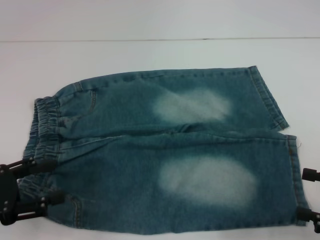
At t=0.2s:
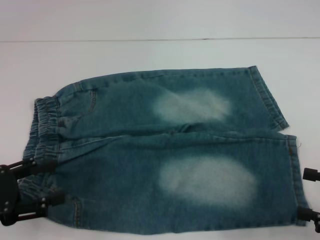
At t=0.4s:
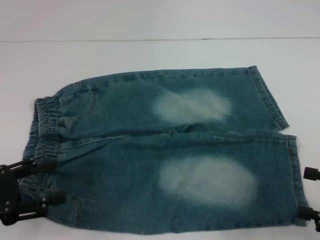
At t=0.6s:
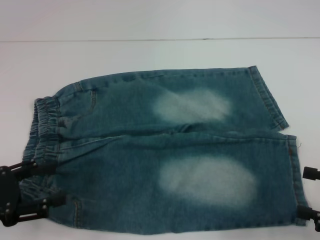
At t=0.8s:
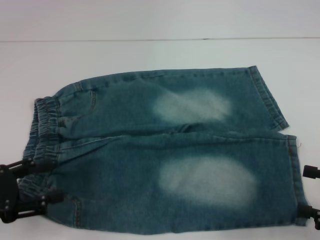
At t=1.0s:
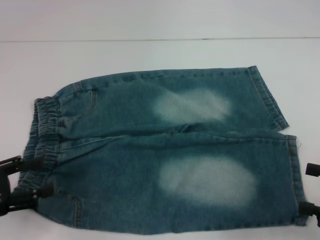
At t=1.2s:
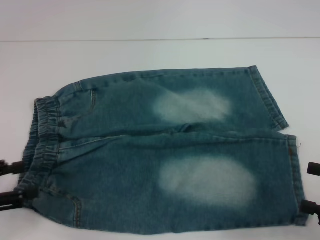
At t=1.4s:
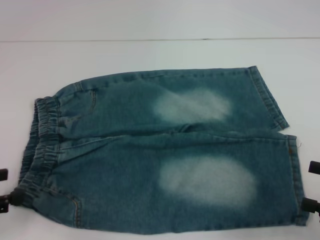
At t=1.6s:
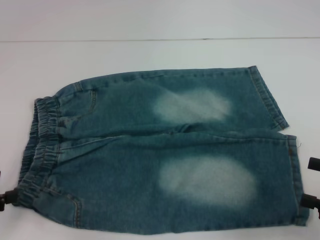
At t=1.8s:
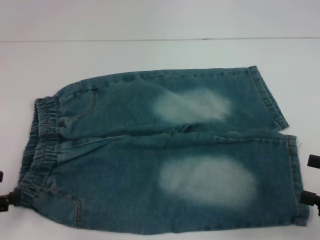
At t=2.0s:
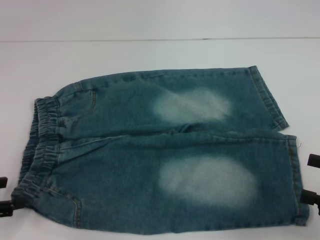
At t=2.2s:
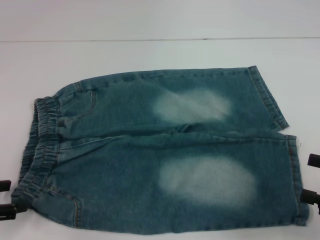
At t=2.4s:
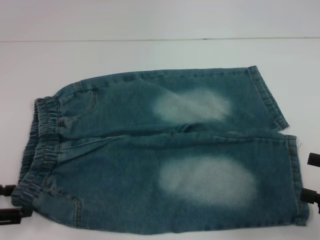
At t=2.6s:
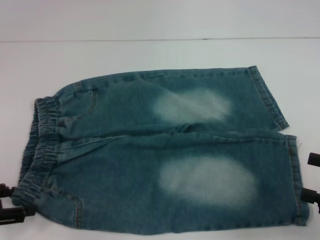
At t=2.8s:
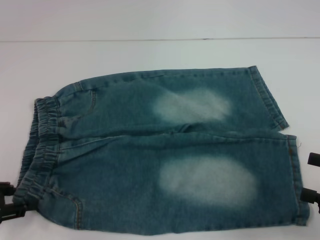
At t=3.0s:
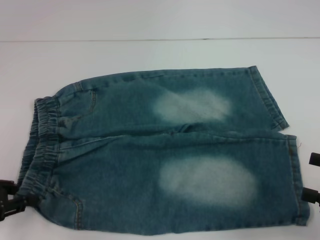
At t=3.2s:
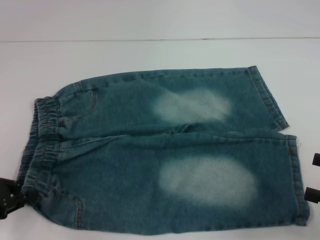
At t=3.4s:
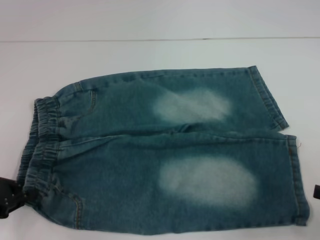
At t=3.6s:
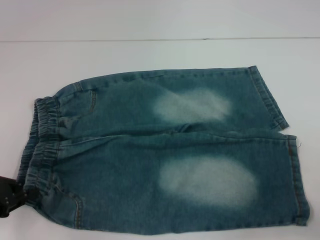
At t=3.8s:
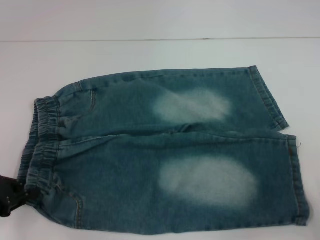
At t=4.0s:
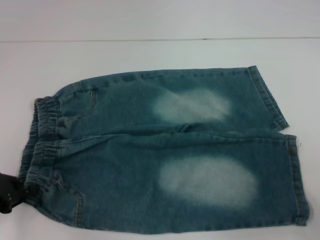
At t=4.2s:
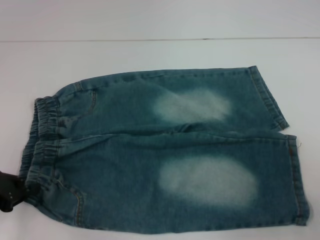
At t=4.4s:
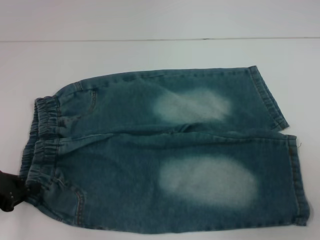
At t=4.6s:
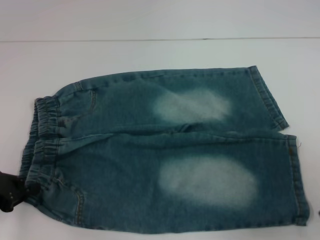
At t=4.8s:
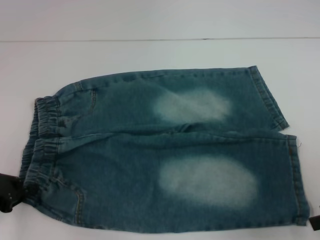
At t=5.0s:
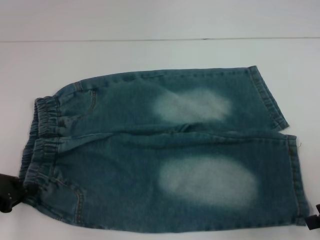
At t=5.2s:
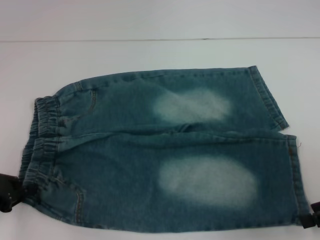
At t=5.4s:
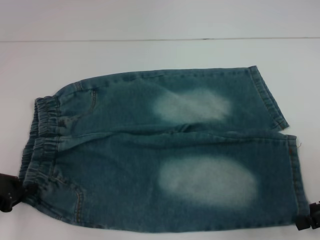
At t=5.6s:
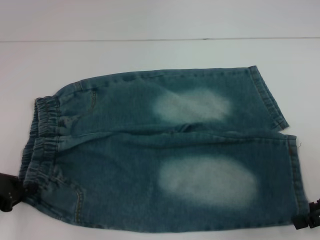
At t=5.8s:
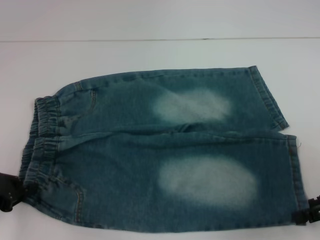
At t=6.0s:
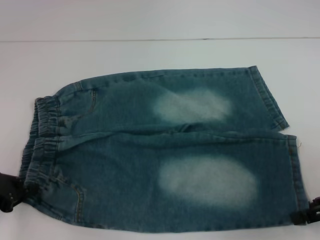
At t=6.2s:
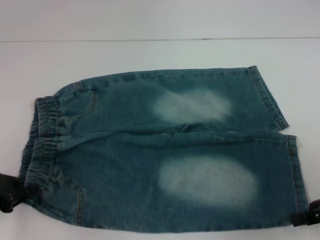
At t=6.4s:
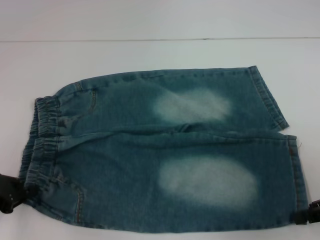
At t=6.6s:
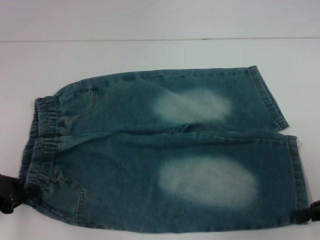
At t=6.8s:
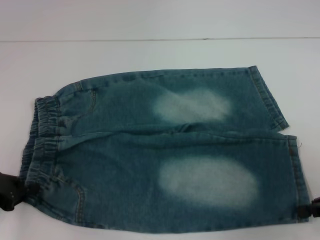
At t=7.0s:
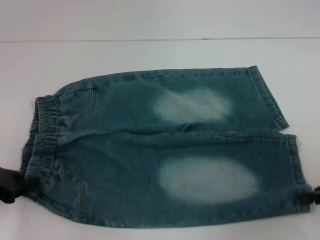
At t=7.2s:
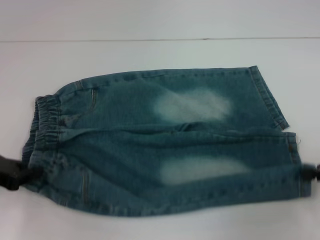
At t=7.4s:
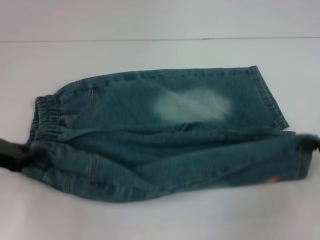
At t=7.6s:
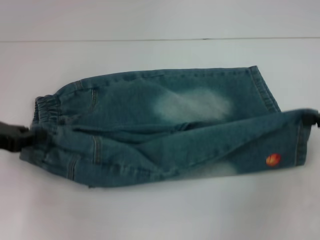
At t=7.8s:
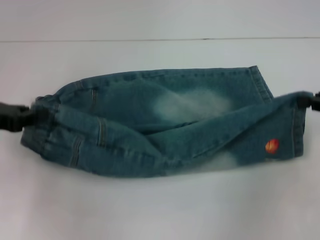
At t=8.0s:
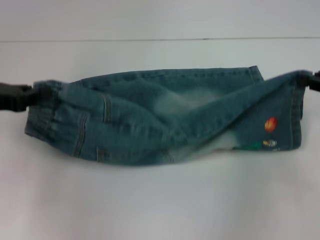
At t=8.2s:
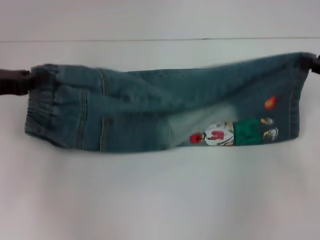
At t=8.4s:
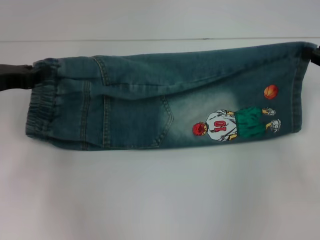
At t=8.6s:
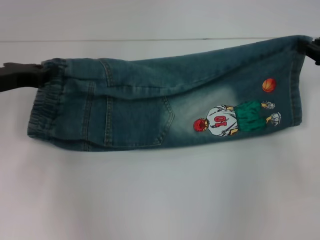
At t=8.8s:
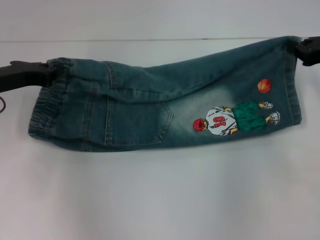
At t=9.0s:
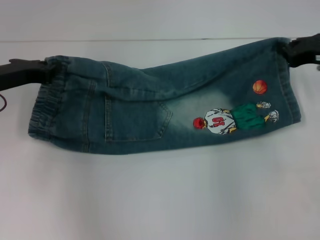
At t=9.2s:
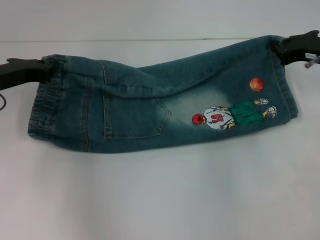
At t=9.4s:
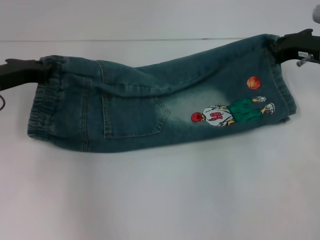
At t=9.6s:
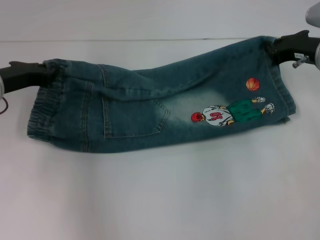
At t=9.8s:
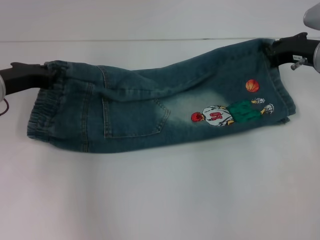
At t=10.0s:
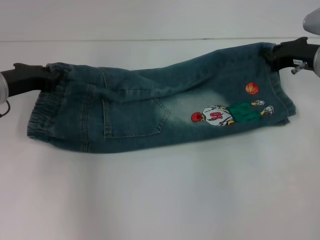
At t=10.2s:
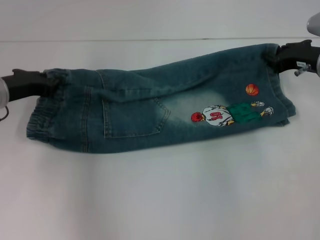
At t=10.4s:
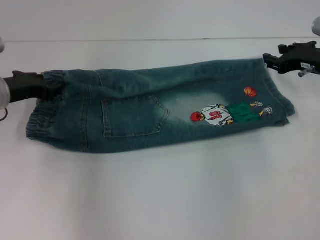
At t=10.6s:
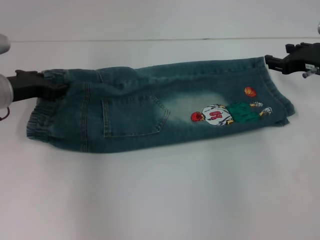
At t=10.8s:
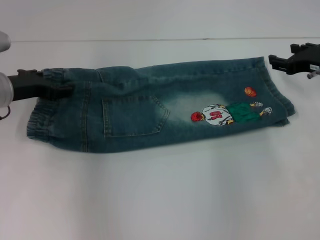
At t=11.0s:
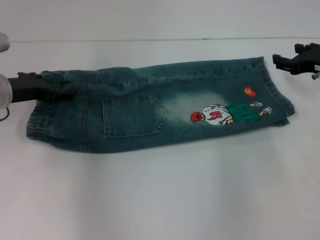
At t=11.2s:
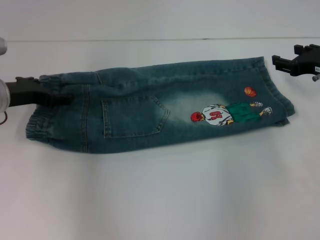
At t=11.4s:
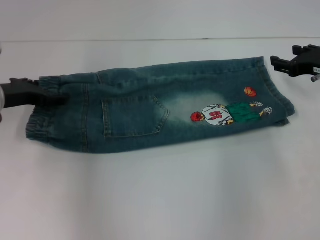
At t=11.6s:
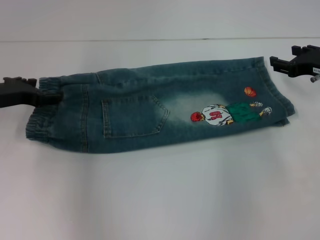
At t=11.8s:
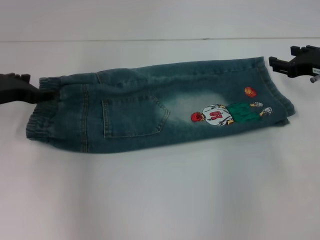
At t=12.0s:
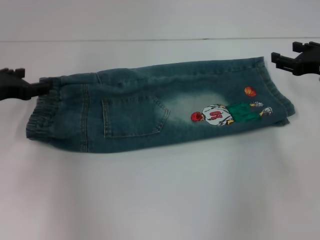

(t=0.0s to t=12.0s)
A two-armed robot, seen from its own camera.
Step, t=0.0s - t=3.0s: Hold the lower left waistband with your left hand.
Step, t=6.8s - t=11.4s: Fold upward with your right hand.
t=0.0s - t=1.6s: The left gripper moves about 5 cm.
t=1.6s - t=3.0s: The left gripper closes.
t=3.0s - t=4.4s: The left gripper closes up; the right gripper heads upward, covering some 5 cm.
t=4.4s - t=6.0s: The right gripper ends up about 5 cm from where it was.
t=6.0s - t=7.6s: The right gripper moves upward, roughly 5 cm, and closes its fingers, while the left gripper moves some 5 cm.
t=7.6s - t=9.0s: The right gripper goes about 10 cm forward and to the left, while the left gripper goes about 5 cm forward.
t=9.0s - t=10.4s: The grippers move only a little.
t=10.4s - t=12.0s: The right gripper opens up, while the left gripper opens its fingers.

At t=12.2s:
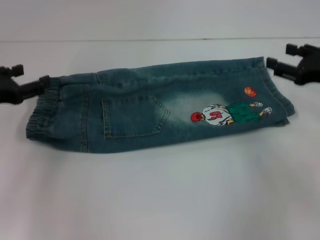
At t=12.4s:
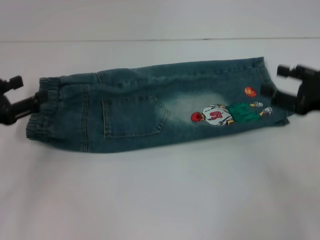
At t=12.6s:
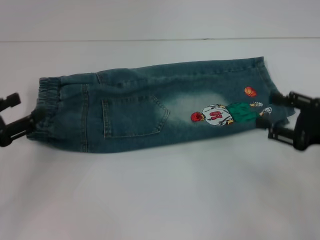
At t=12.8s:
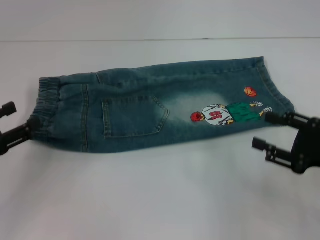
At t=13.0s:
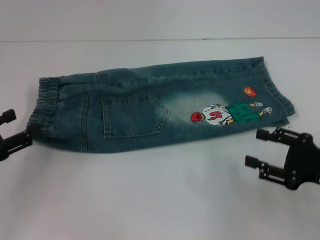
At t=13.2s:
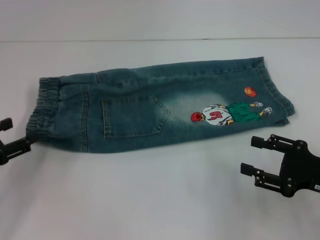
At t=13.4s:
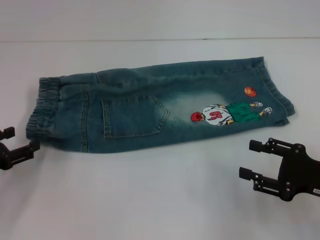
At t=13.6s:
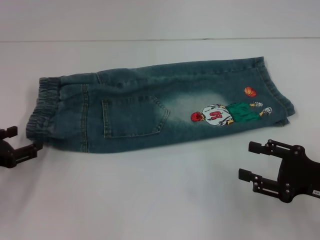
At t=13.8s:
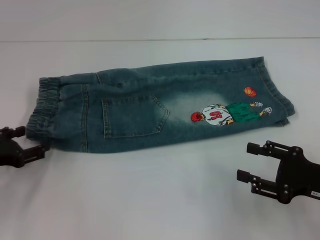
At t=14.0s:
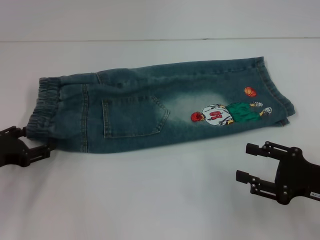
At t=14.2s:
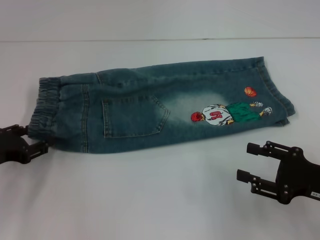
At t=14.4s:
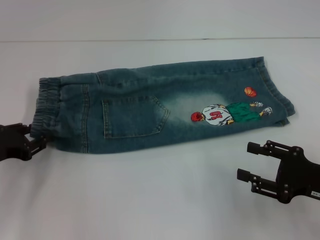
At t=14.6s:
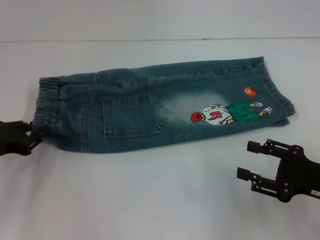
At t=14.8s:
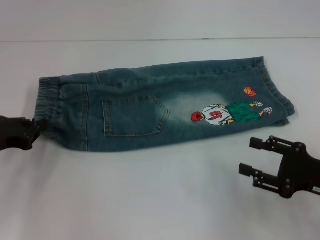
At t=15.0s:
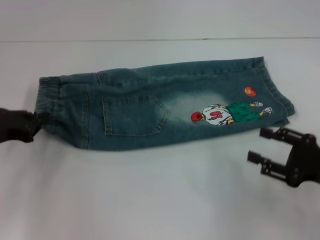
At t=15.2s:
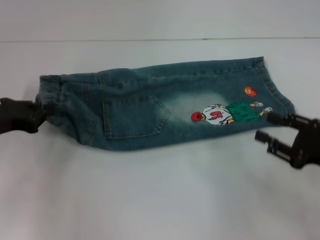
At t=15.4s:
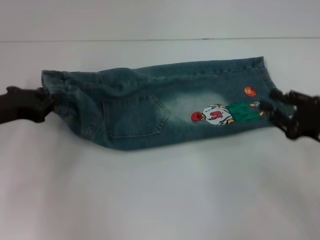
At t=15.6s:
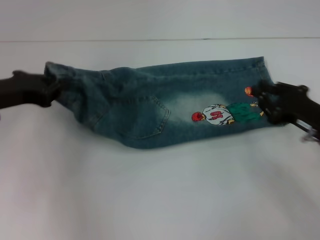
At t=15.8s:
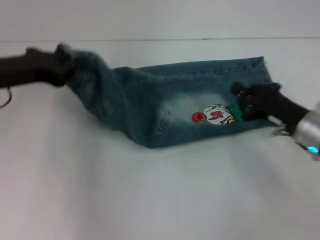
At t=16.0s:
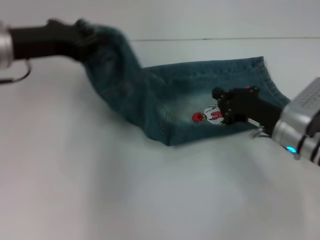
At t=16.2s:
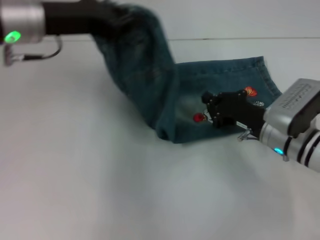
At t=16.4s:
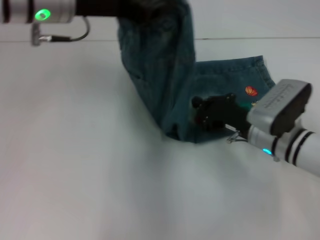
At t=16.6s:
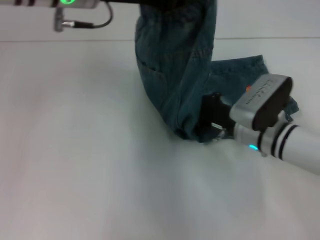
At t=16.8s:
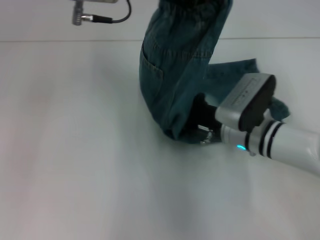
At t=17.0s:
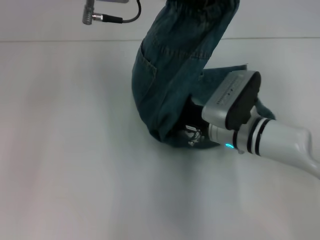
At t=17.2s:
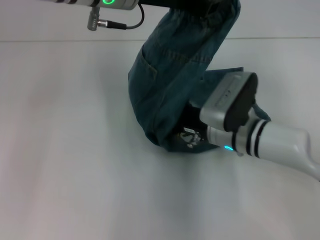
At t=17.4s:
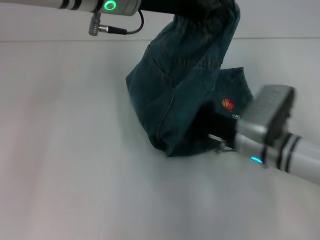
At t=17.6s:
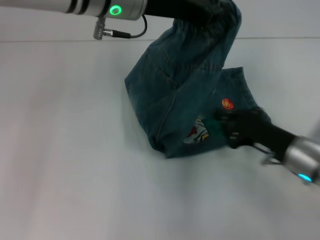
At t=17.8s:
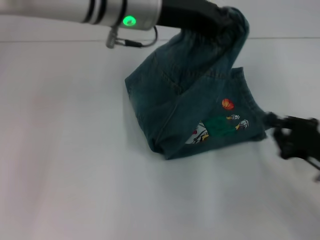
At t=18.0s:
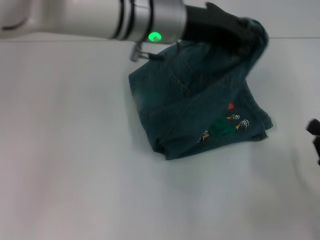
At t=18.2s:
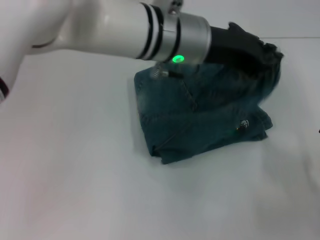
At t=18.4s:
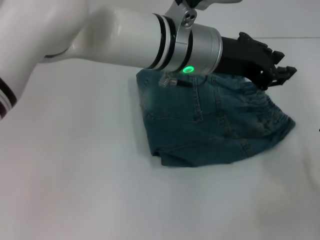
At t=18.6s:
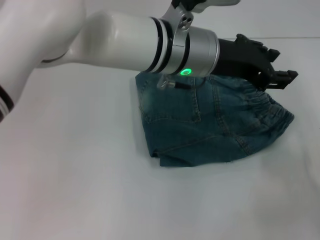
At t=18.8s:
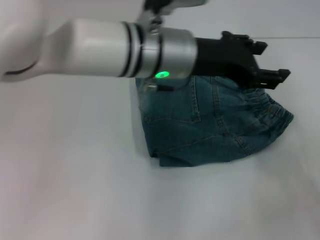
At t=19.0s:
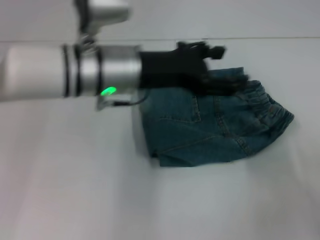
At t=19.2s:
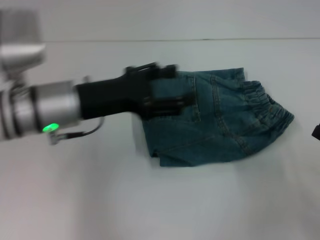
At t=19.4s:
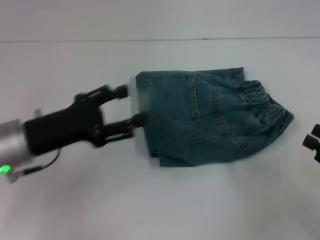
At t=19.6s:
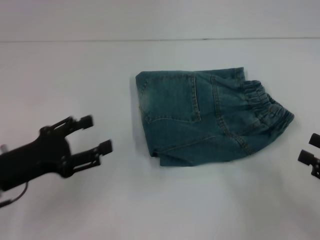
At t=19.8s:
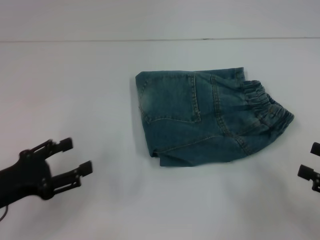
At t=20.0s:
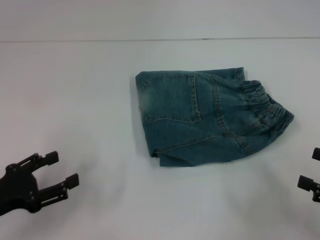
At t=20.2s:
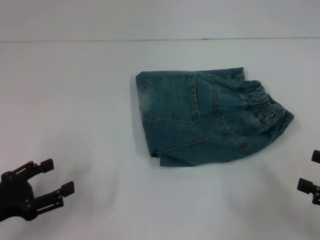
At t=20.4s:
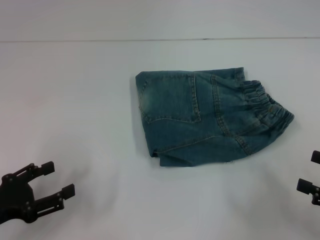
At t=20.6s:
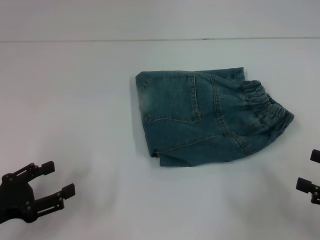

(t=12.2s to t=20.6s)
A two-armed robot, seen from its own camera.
Step, t=12.2s - t=14.4s: Hold the waistband with your left hand.
Step, t=14.6s - t=17.4s: Press the middle of the pants with your right hand.
Step, t=17.6s - t=18.8s: Fold to the right with your left hand.
t=12.2s - t=13.6s: The left gripper shifts approximately 10 cm downward and backward. The right gripper goes some 15 cm backward and downward.
t=13.6s - t=15.0s: The left gripper changes place by about 5 cm, and closes its fingers.
t=15.0s - t=16.4s: The right gripper goes roughly 15 cm to the left and forward, and closes its fingers. Meanwhile the left gripper travels upward, to the right and forward by approximately 25 cm.
t=16.4s - t=17.8s: The left gripper goes some 10 cm to the right, while the right gripper shifts roughly 15 cm to the right and backward.
t=17.8s - t=19.2s: The left gripper travels to the left, downward and backward by approximately 15 cm, and opens, while the right gripper shifts about 5 cm to the right.
t=19.2s - t=20.6s: The left gripper heads to the left, backward and downward, covering some 20 cm, while the right gripper opens up.
